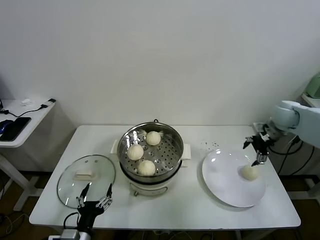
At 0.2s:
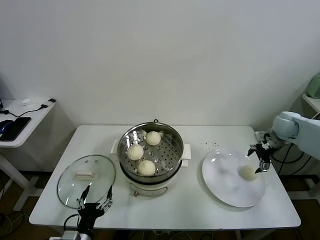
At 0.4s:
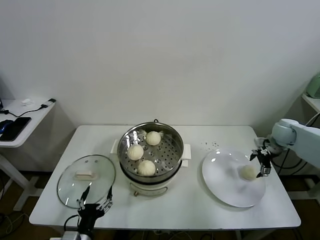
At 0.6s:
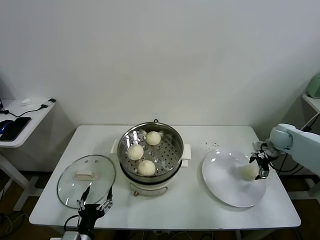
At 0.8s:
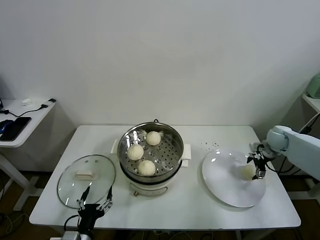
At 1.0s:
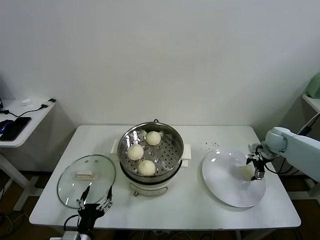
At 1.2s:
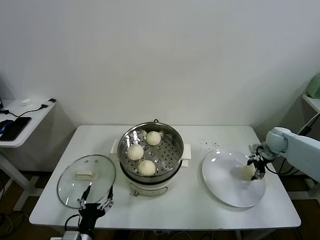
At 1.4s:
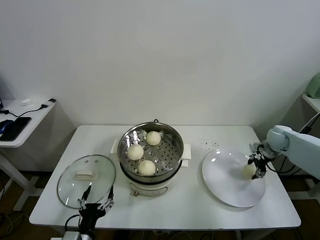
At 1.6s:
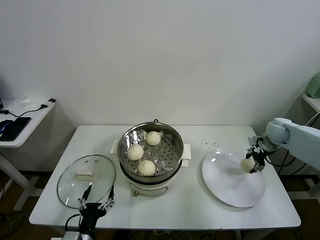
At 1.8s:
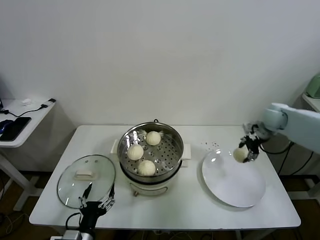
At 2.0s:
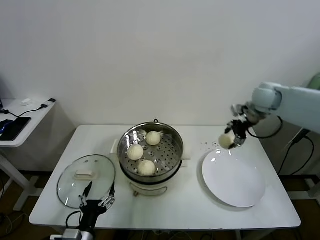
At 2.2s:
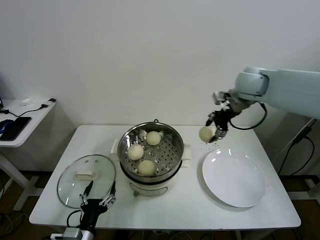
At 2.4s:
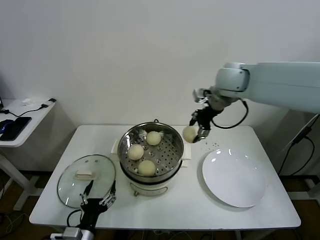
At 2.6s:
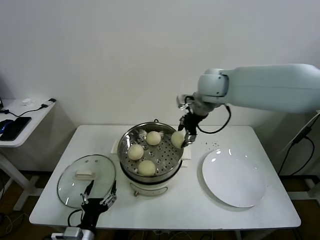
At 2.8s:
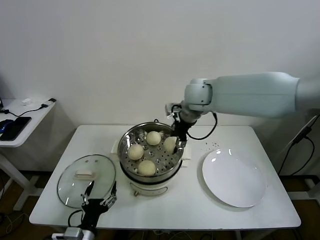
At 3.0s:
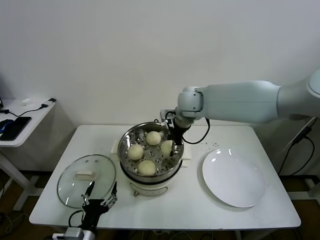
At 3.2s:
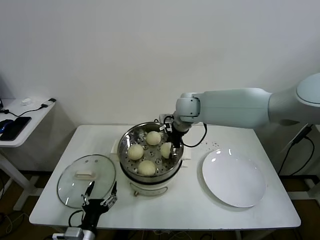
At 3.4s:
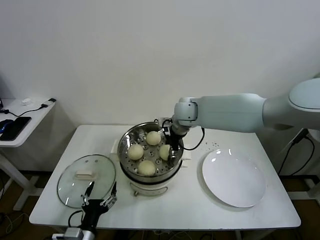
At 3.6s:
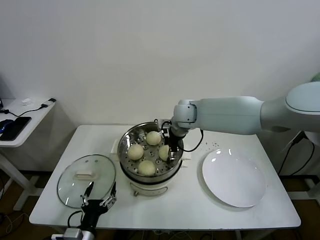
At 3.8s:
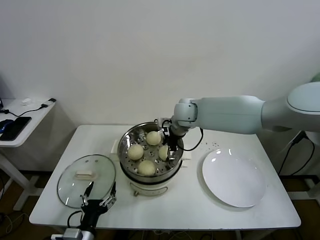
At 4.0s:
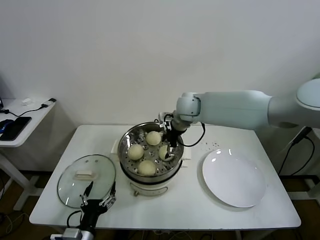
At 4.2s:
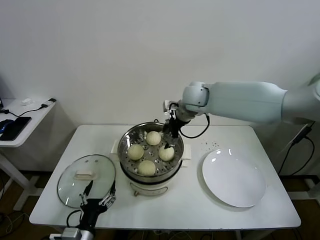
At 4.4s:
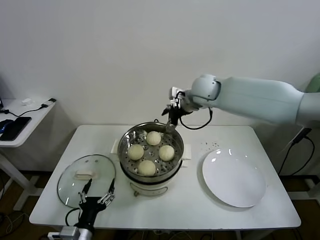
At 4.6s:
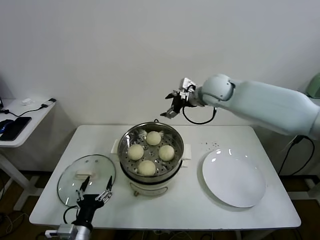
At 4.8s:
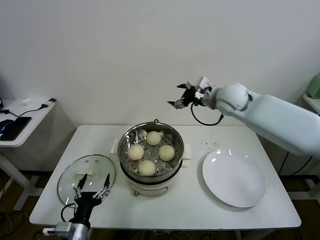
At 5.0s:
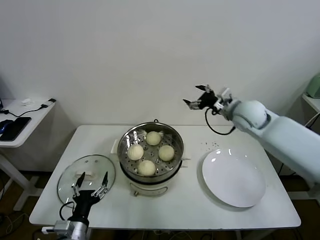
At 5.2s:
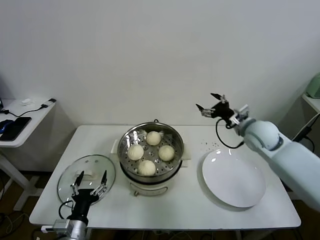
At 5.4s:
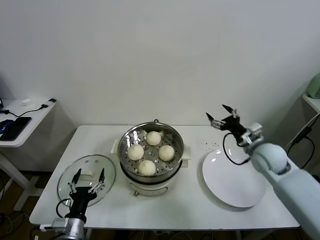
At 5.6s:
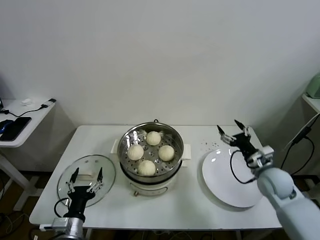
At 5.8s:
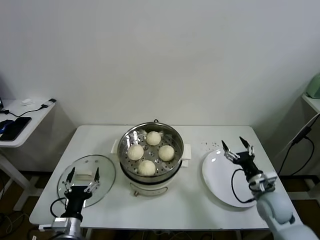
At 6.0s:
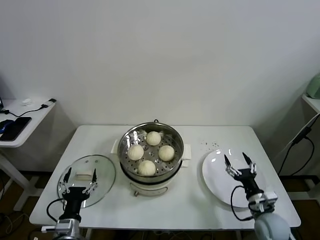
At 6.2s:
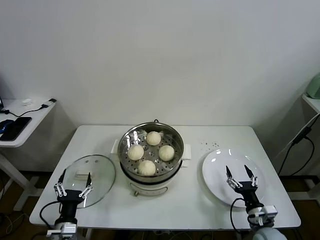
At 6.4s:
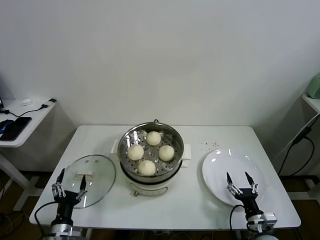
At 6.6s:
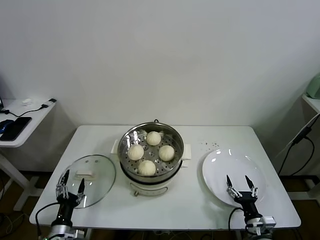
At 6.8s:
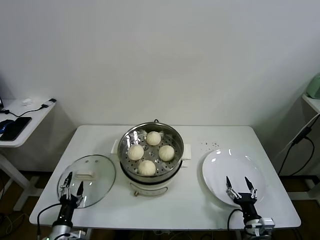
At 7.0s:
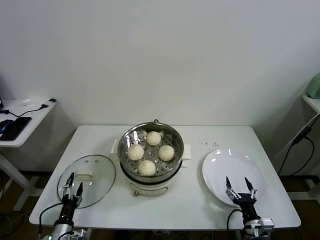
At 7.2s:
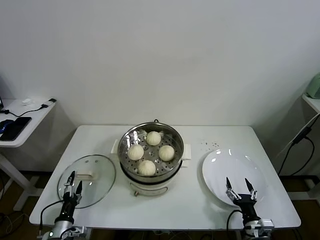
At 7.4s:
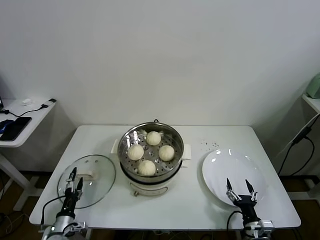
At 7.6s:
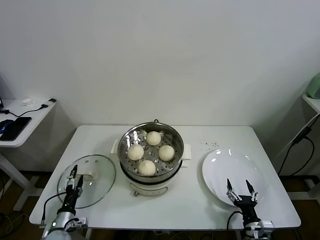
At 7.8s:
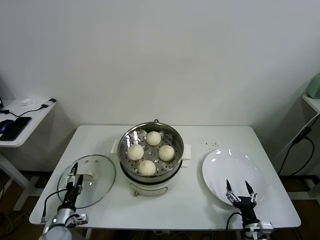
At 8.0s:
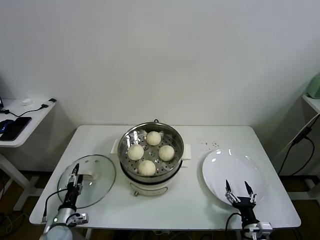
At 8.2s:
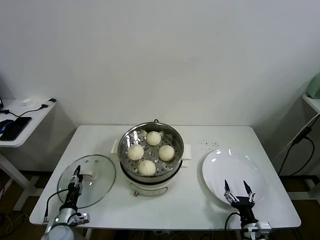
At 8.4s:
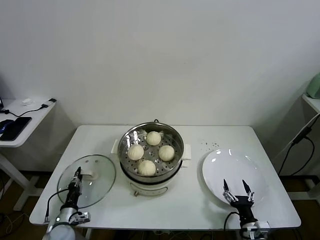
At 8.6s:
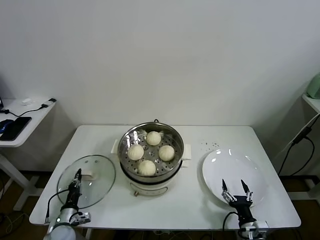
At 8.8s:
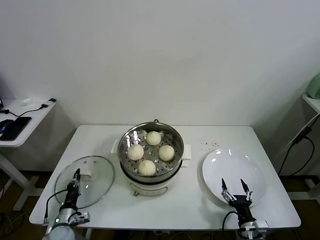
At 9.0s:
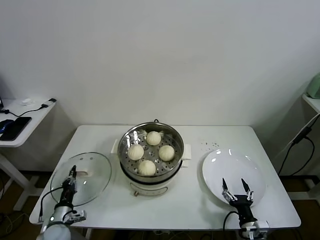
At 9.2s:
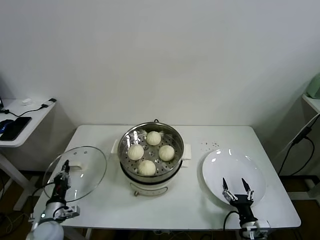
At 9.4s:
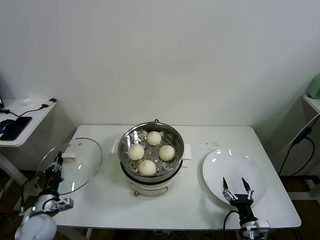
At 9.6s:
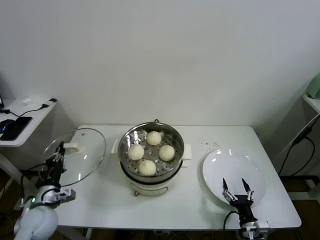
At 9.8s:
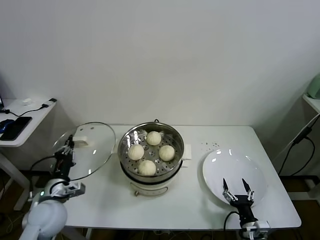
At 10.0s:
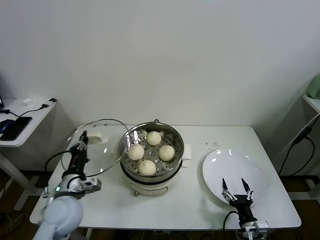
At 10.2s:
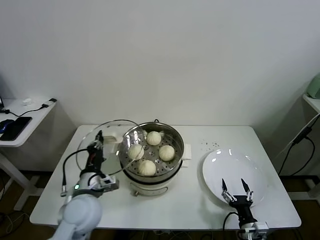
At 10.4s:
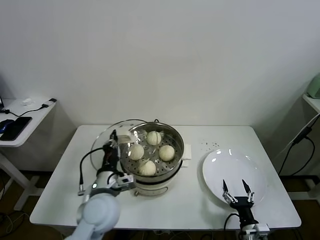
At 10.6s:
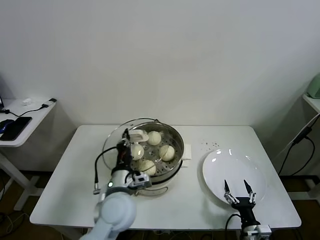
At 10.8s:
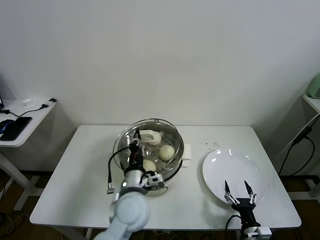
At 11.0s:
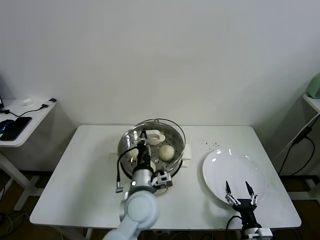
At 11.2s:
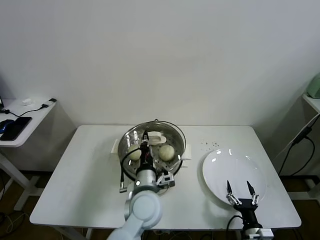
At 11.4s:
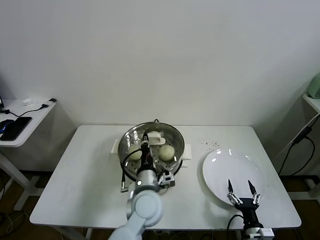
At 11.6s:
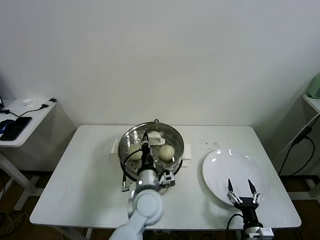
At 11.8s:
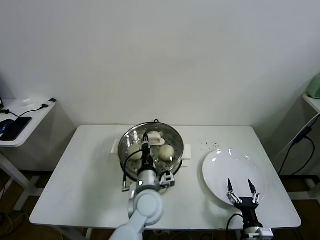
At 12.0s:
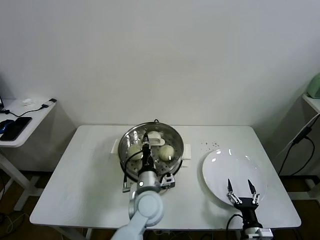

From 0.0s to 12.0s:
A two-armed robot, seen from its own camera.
Task of the whole recording: take steamed baozi put them in steamer.
Step, from 1.2s to 3.8s: Place the baozi on the steamer with right gripper.
Step, from 4.0s to 8.4s: Grasp the pot lid with left gripper.
From 0.0s to 1.6s: The right gripper moves downward, about 5 cm, and closes.
From 1.6s to 3.0s: The right gripper travels to the left by approximately 35 cm.
From 3.0s to 4.4s: The right gripper changes place by approximately 5 cm, and opens its fingers.
From 4.4s to 6.0s: The right gripper is displaced downward, backward and to the right by some 50 cm, while the left gripper ends up some 5 cm from where it was.
From 6.0s to 7.6s: The right gripper goes about 10 cm backward and downward; the left gripper shifts about 15 cm downward and to the left.
From 7.6s to 9.0s: The left gripper closes.
From 9.0s to 10.4s: The left gripper is displaced upward and to the right by about 30 cm.
From 10.4s to 12.0s: The left gripper moves to the right, about 15 cm.

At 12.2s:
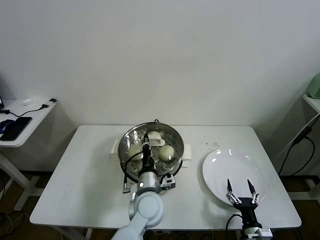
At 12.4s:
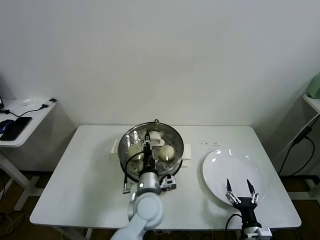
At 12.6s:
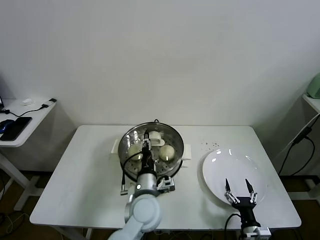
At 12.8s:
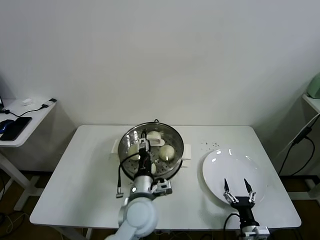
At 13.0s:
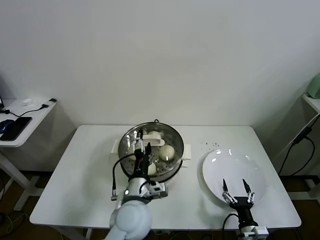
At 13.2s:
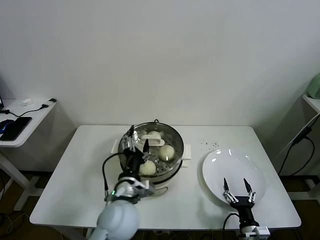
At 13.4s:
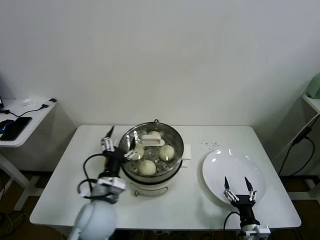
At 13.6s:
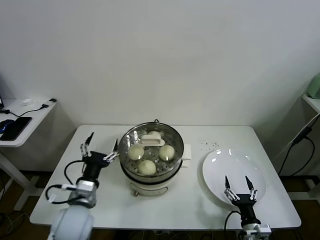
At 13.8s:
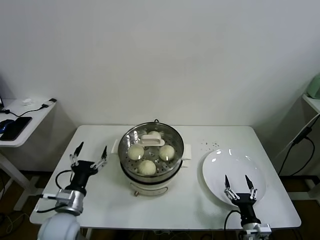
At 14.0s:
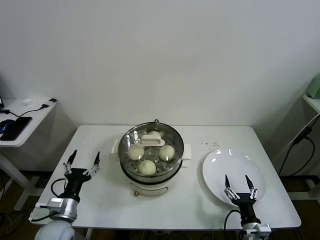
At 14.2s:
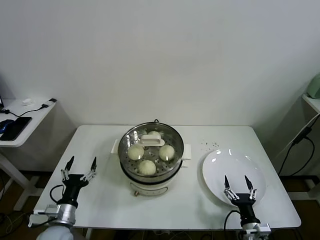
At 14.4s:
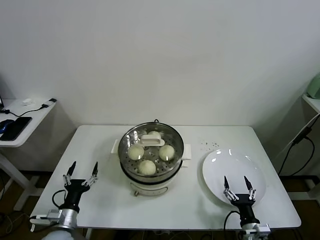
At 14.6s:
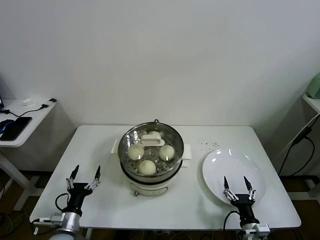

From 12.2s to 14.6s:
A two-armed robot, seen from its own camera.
Task of the whole recording: take steamed baozi put them in steamer.
From 12.2s to 13.4s: The left gripper moves to the left and upward, some 10 cm, and opens up.
From 13.4s to 14.6s: The left gripper shifts approximately 25 cm to the left and downward.

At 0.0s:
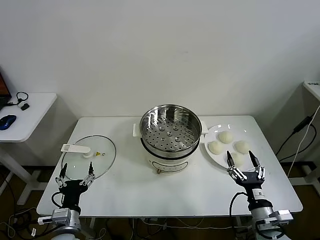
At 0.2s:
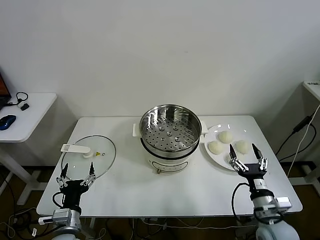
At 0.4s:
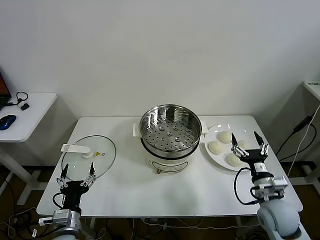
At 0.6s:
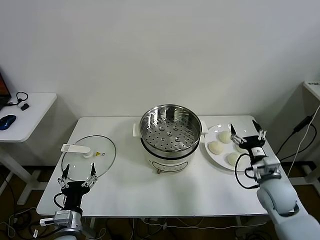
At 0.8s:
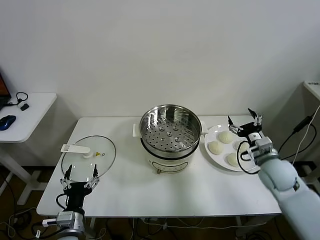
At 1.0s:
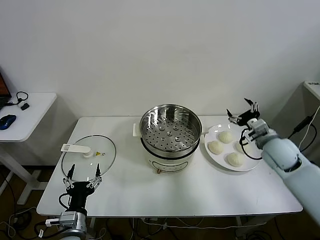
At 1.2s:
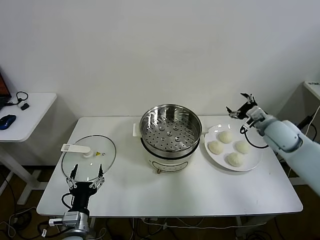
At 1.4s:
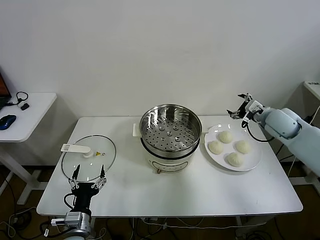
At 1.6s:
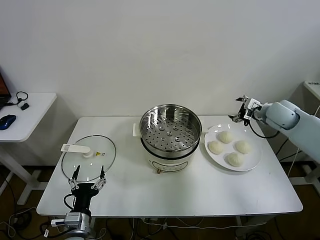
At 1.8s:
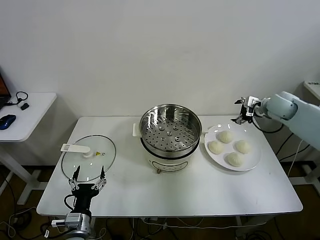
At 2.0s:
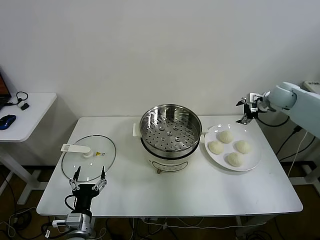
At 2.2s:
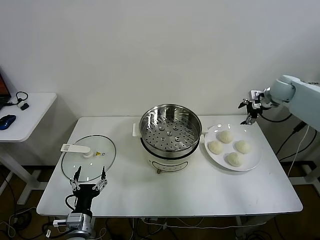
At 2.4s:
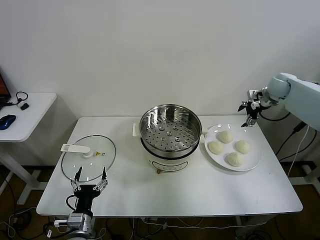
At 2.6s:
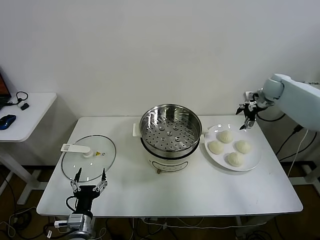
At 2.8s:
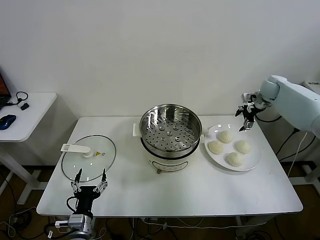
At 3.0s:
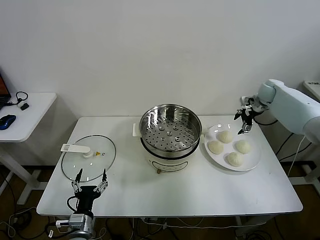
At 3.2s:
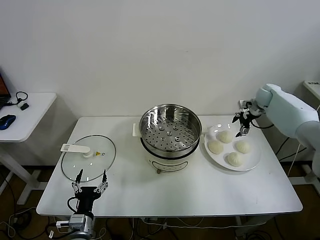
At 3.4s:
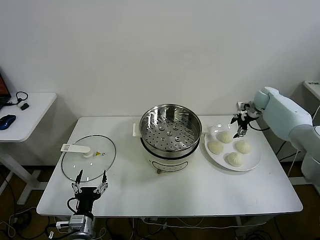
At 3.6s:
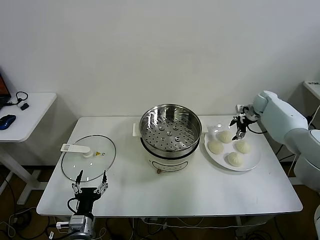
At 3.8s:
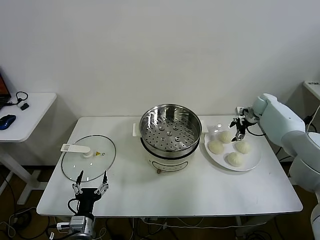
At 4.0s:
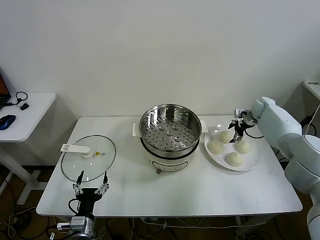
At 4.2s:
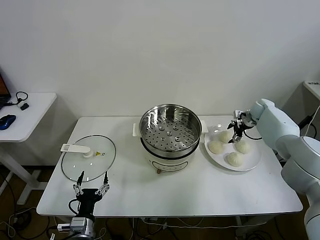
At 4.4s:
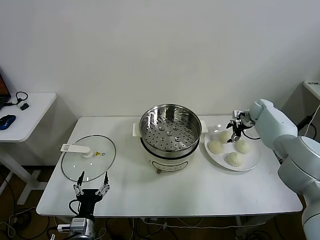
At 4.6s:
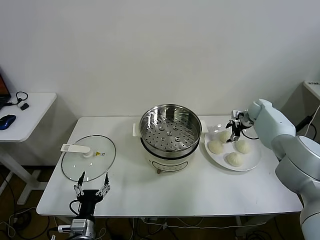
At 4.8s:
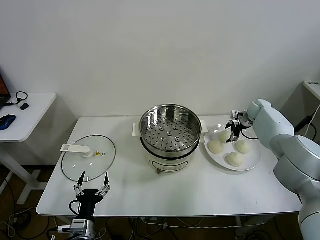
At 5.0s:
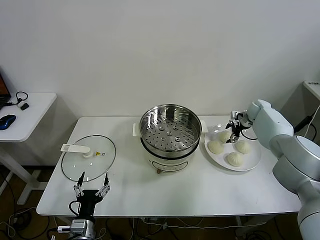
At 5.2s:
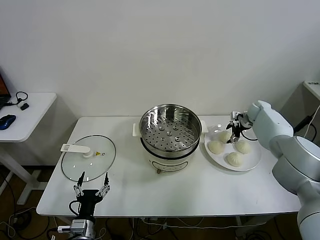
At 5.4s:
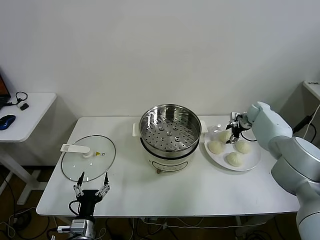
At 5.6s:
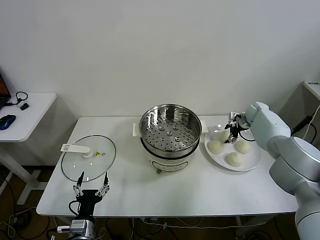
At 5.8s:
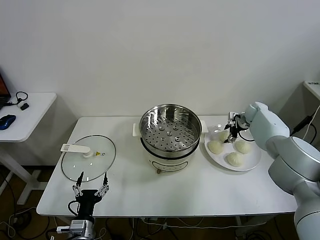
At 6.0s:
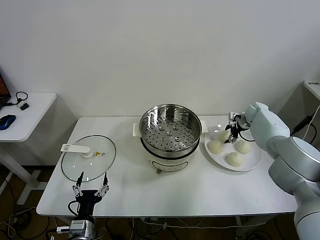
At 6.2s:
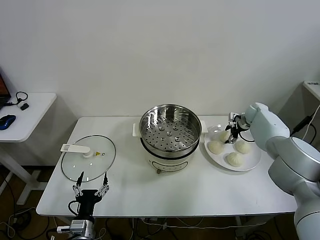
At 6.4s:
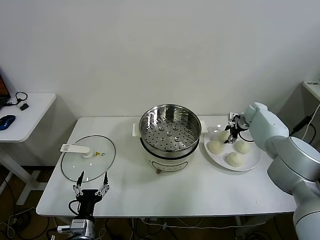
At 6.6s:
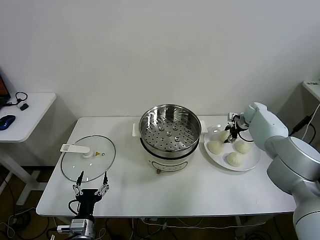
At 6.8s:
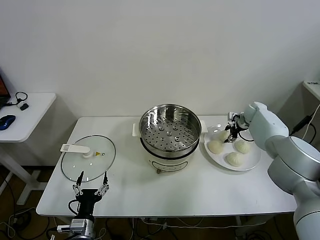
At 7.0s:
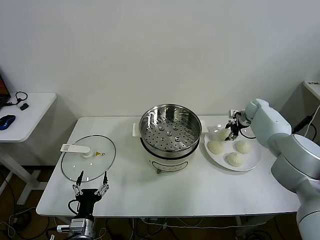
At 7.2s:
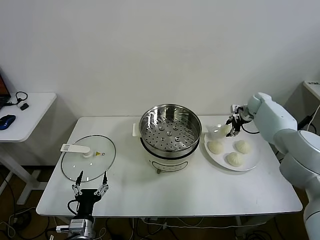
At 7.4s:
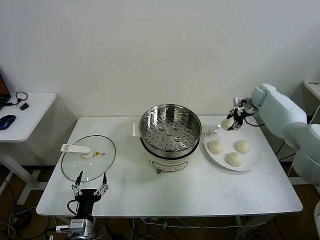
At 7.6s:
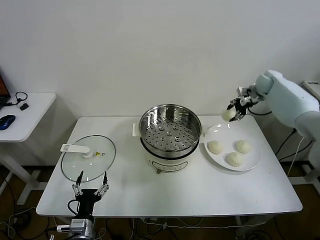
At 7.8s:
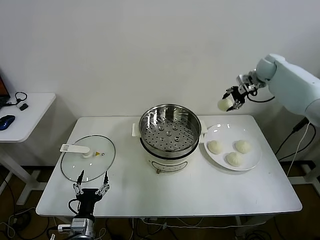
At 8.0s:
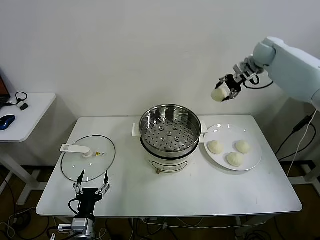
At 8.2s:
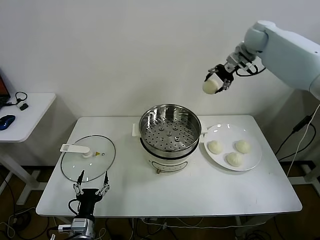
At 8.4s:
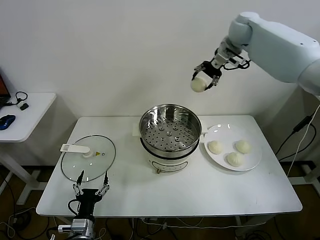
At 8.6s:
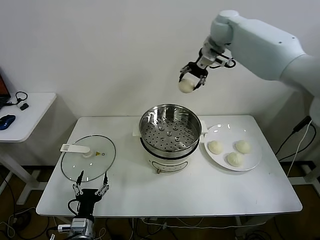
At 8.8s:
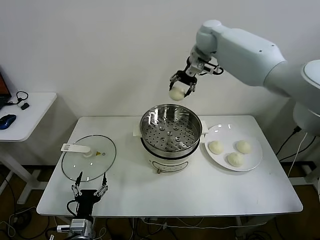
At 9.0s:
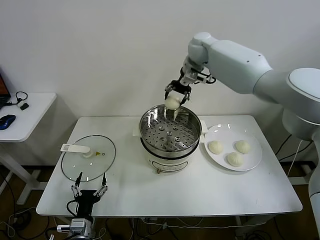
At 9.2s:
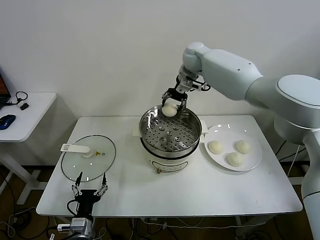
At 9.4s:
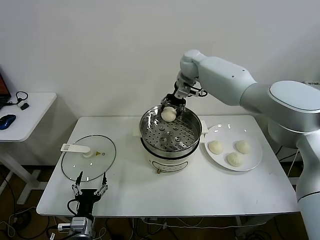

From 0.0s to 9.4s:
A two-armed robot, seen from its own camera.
Task of the whole recording: take steamed baozi put them in steamer.
Step, from 0.0s to 6.6s: Grasp the baozi in the plate with right gripper.
From 1.6s to 3.2s: The right gripper goes approximately 10 cm forward.
From 3.2s to 4.8s: The right gripper goes approximately 5 cm downward.
From 4.8s to 6.2s: The grippers move only a little.
From 6.2s to 7.8s: The right gripper is displaced upward by approximately 25 cm, and closes its fingers.
From 7.8s to 9.4s: The right gripper moves to the left, roughly 25 cm.
